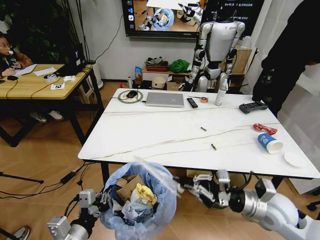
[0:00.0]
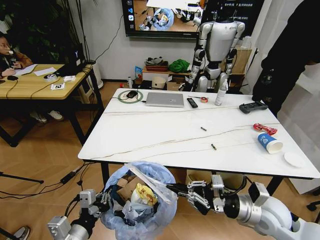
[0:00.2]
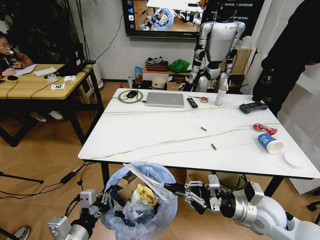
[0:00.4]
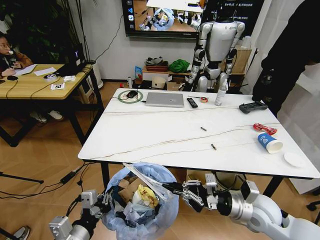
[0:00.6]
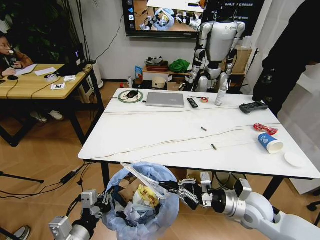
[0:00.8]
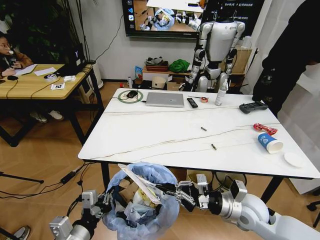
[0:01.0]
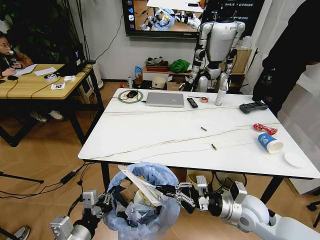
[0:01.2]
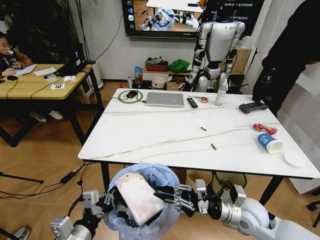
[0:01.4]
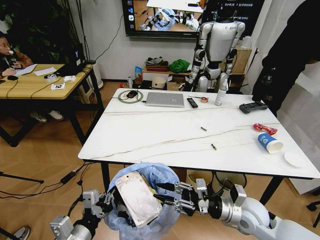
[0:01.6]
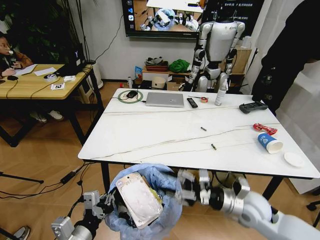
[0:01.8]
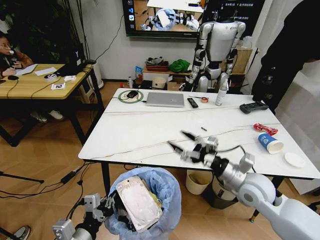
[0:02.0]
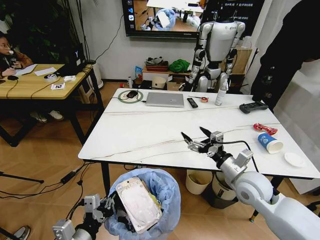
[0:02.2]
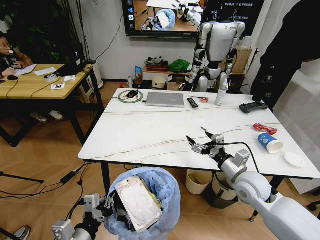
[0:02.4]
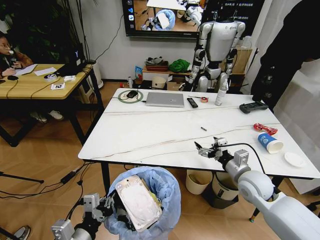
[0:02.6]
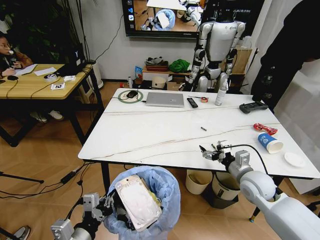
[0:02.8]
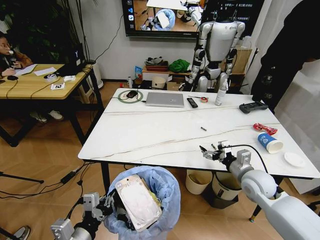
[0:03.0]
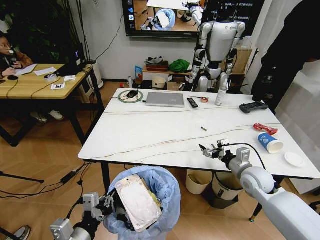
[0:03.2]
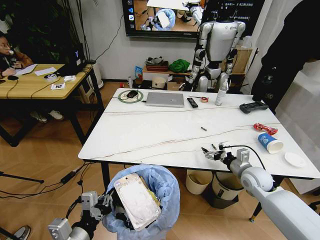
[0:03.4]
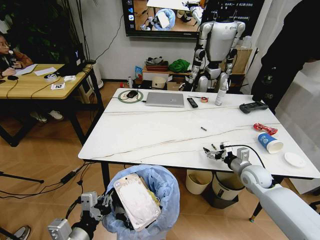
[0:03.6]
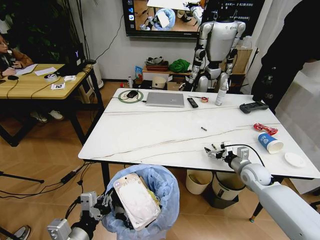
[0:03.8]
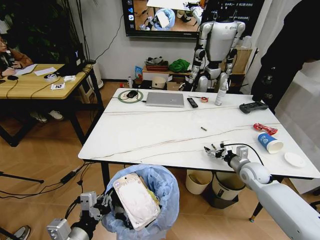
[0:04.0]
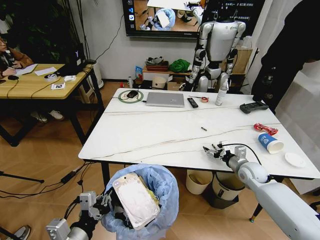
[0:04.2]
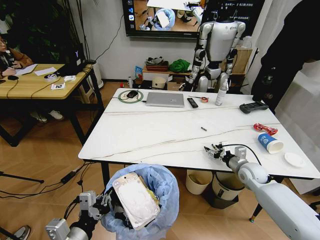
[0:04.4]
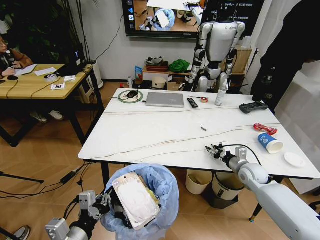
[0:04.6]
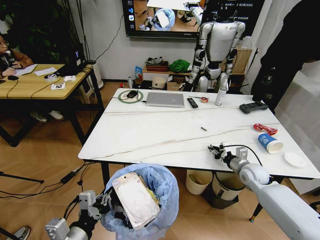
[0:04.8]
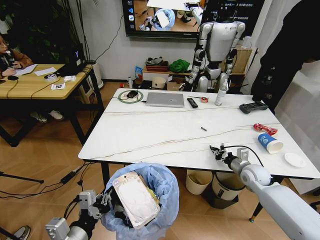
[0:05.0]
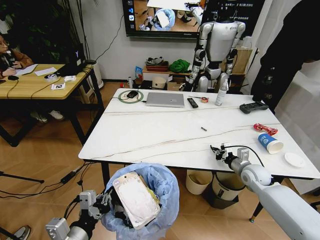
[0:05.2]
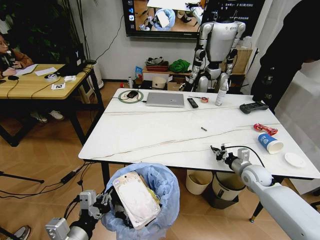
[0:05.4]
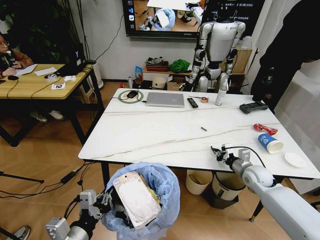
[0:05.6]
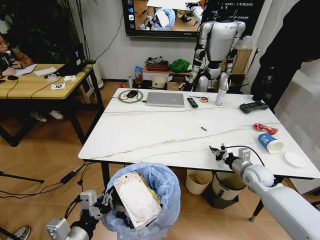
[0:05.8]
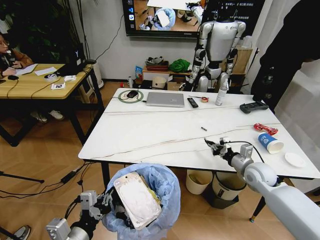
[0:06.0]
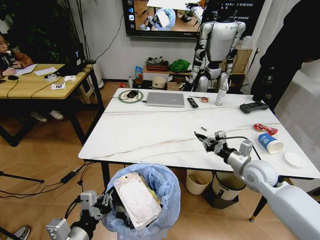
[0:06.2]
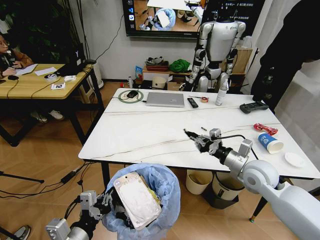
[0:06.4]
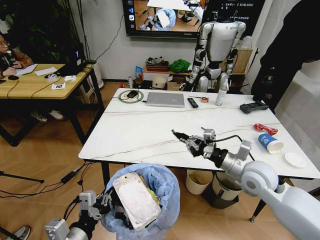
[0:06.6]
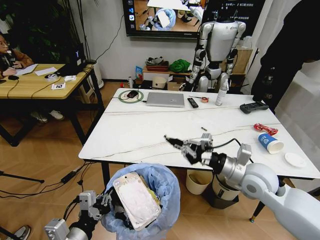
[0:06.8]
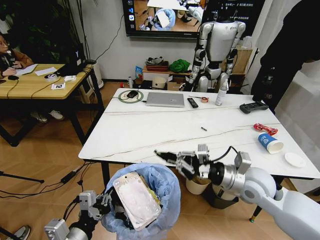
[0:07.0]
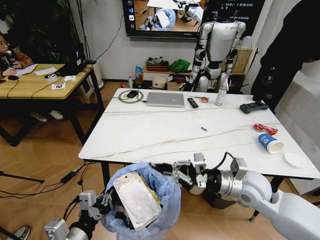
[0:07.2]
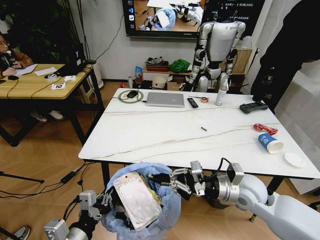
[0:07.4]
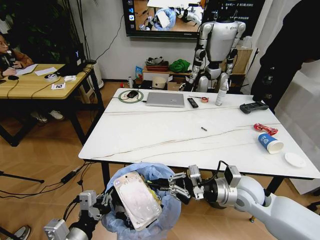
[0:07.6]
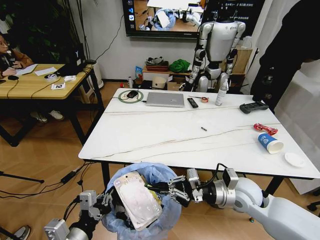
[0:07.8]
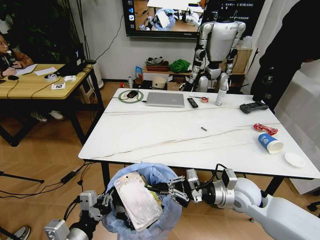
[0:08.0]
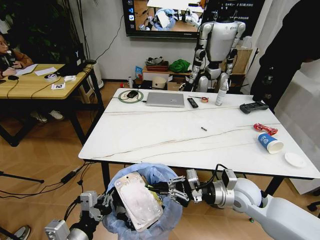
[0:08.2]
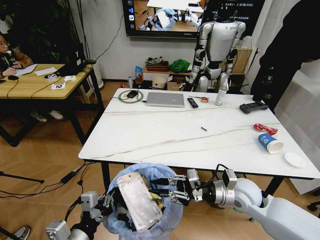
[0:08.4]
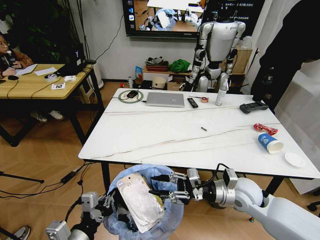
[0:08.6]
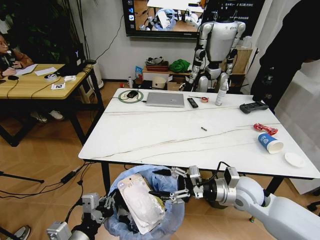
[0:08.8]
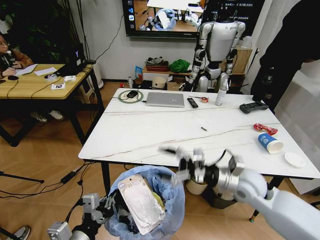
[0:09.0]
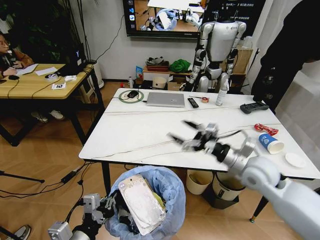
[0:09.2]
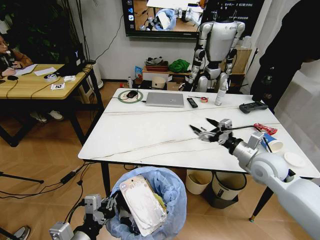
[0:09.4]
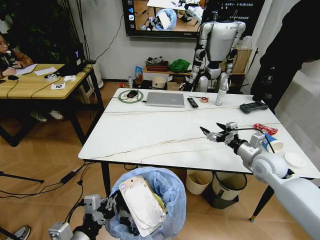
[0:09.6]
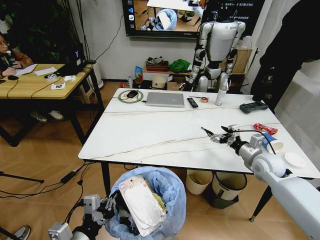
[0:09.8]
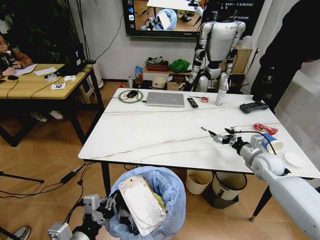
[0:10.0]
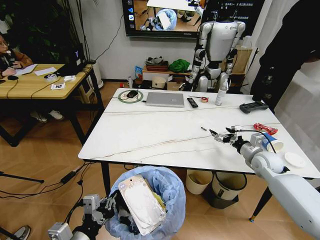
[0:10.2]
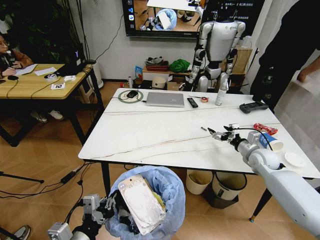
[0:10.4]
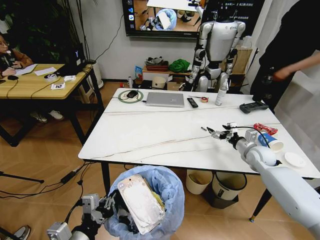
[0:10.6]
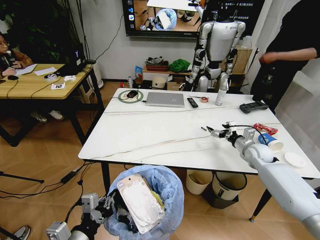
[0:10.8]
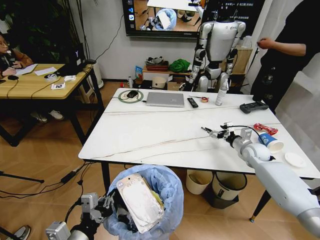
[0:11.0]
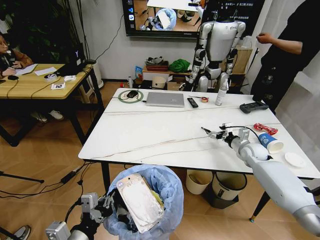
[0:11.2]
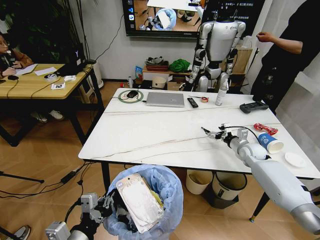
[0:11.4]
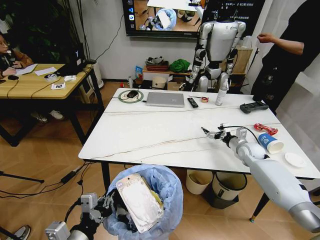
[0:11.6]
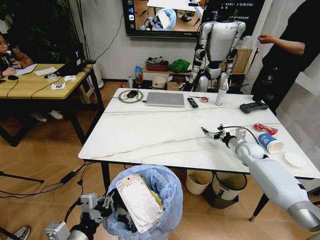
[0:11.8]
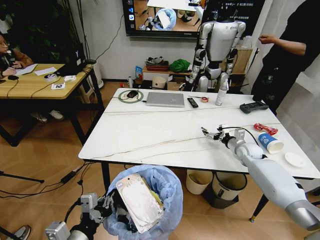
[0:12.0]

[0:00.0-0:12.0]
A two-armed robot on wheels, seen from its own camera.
Task of the whole recording: Pick up the trash bin and place the trash from the table into it.
0:00.0 to 0:01.6: The right gripper is displaced downward by approximately 5 cm, and opens.
0:01.6 to 0:03.0: The right gripper shifts roughly 10 cm forward and to the right, and opens.
0:03.0 to 0:04.4: The right gripper goes roughly 10 cm forward and downward.
0:04.4 to 0:06.0: The right gripper shifts by approximately 5 cm, and closes up.
0:06.0 to 0:07.6: The right gripper heads to the left and backward, covering some 15 cm.
0:07.6 to 0:09.0: The right gripper opens up.
0:09.0 to 0:10.4: The right gripper travels to the right, forward and downward by roughly 20 cm.
0:10.4 to 0:12.0: The right gripper is displaced forward by roughly 5 cm.

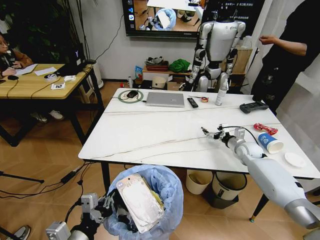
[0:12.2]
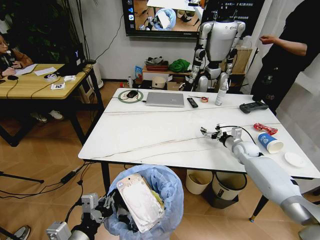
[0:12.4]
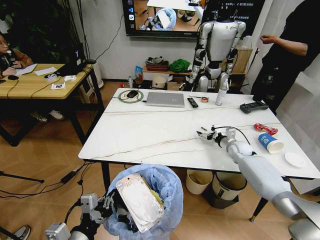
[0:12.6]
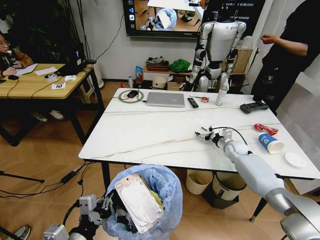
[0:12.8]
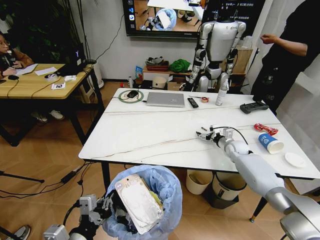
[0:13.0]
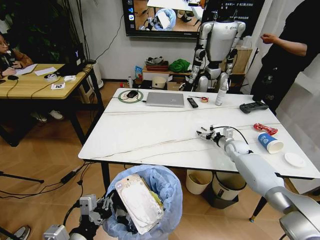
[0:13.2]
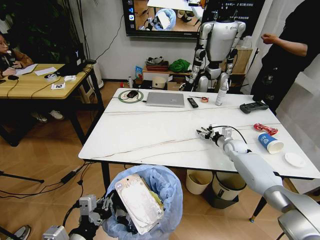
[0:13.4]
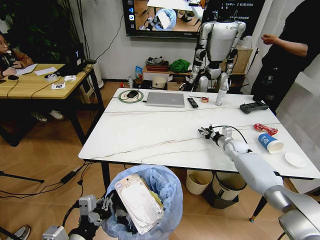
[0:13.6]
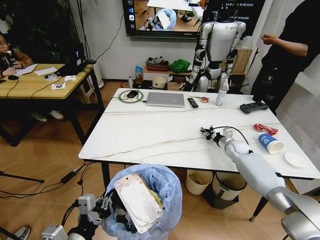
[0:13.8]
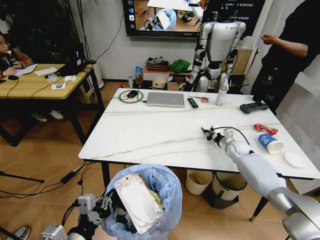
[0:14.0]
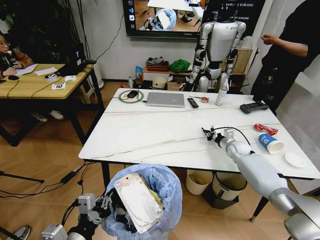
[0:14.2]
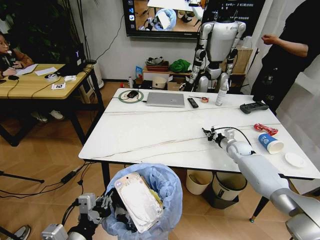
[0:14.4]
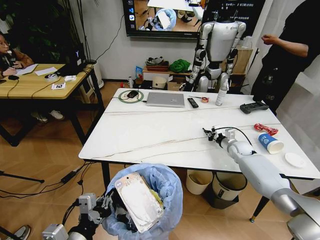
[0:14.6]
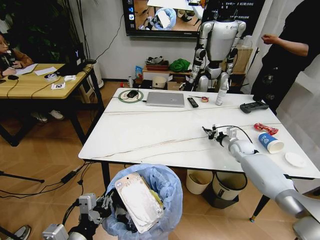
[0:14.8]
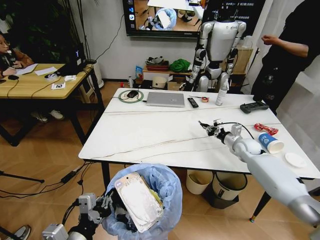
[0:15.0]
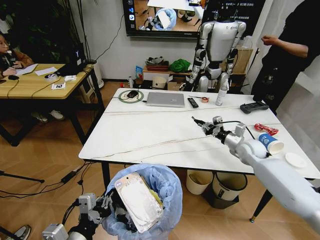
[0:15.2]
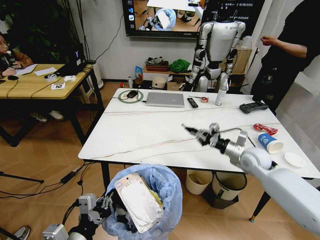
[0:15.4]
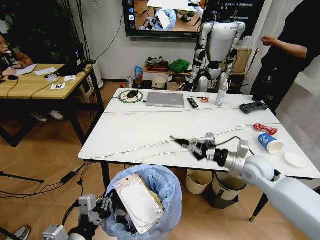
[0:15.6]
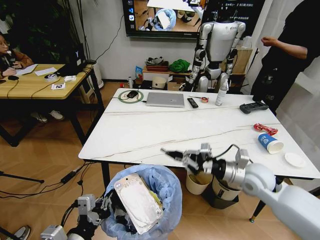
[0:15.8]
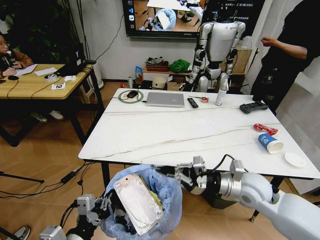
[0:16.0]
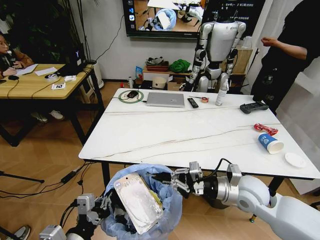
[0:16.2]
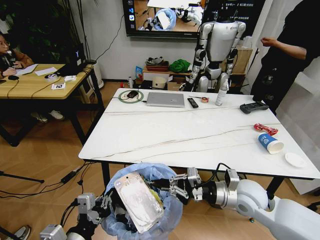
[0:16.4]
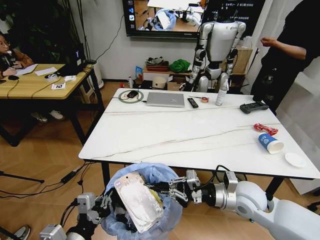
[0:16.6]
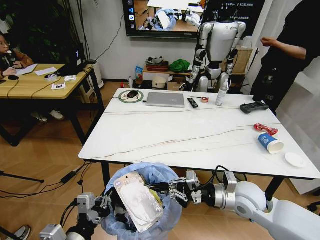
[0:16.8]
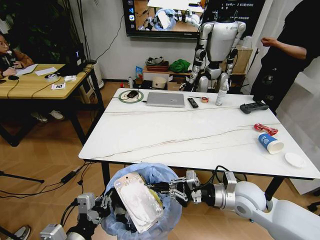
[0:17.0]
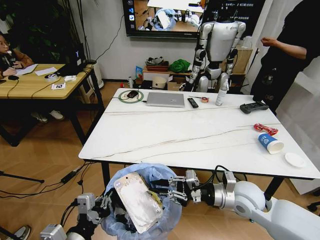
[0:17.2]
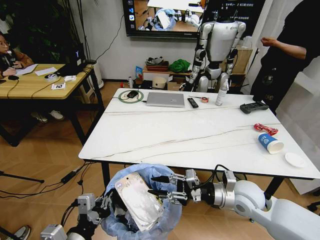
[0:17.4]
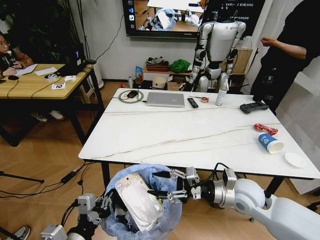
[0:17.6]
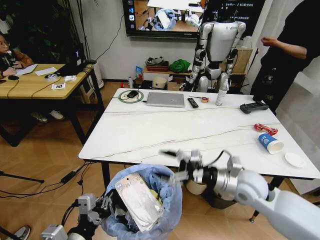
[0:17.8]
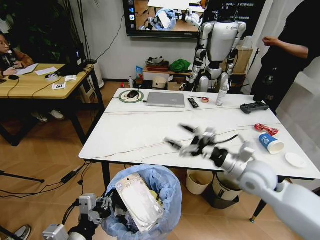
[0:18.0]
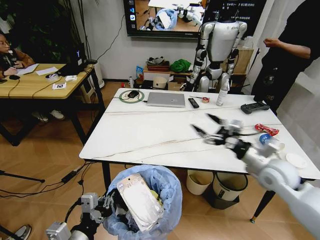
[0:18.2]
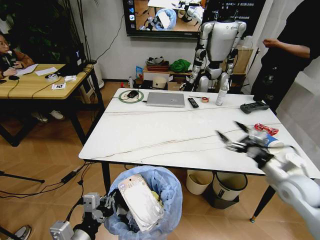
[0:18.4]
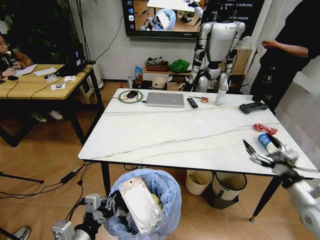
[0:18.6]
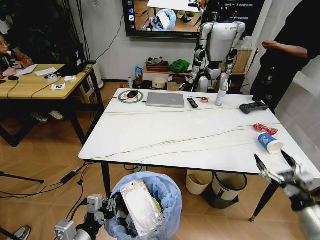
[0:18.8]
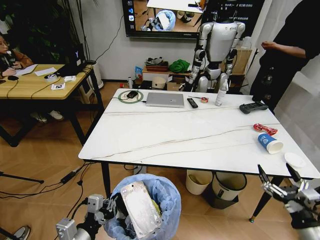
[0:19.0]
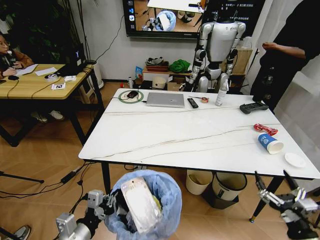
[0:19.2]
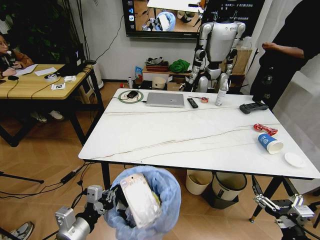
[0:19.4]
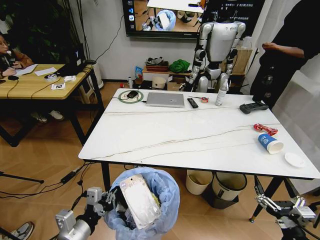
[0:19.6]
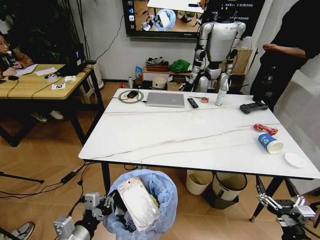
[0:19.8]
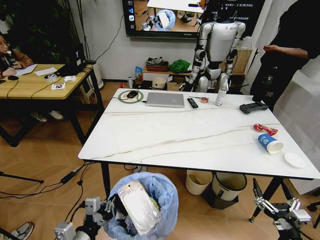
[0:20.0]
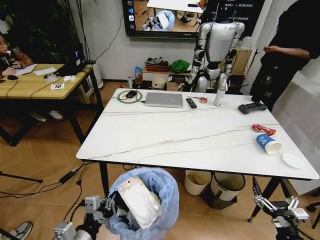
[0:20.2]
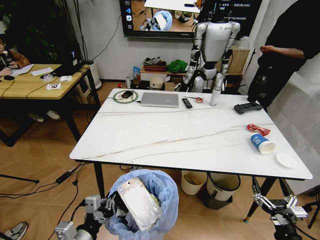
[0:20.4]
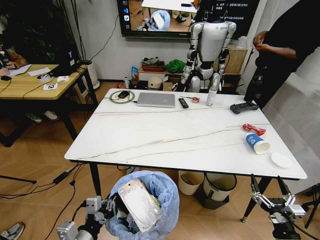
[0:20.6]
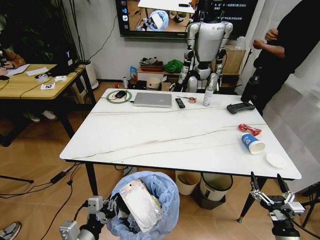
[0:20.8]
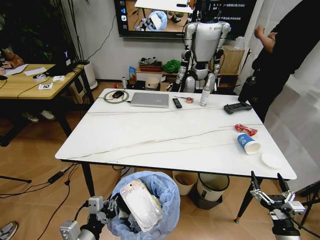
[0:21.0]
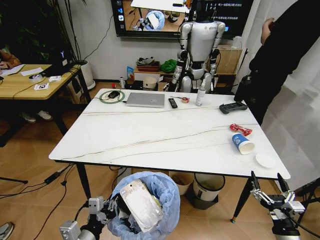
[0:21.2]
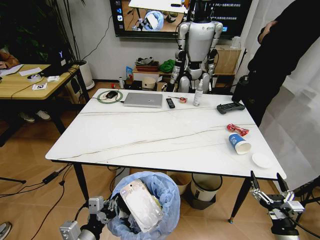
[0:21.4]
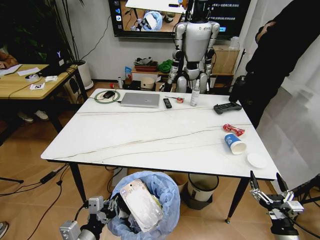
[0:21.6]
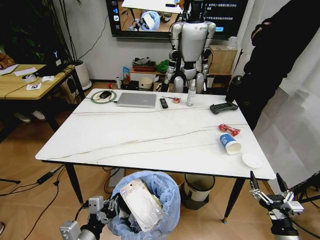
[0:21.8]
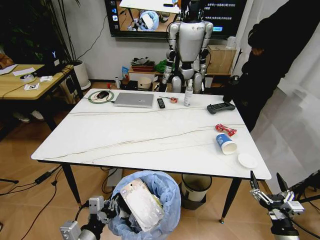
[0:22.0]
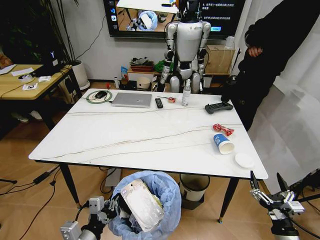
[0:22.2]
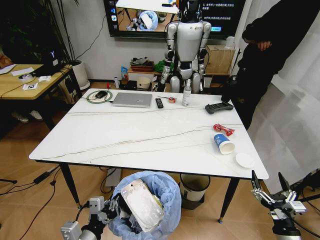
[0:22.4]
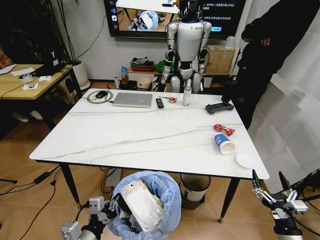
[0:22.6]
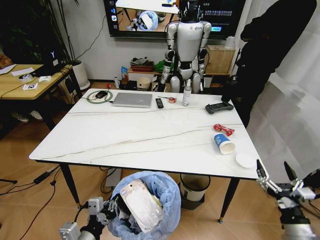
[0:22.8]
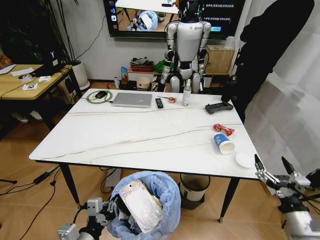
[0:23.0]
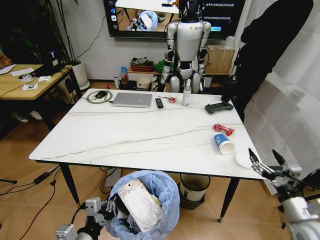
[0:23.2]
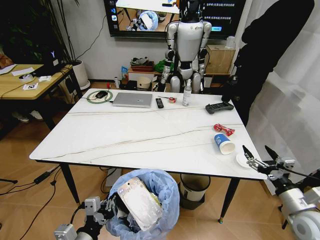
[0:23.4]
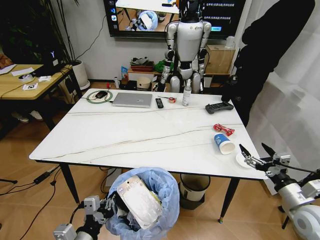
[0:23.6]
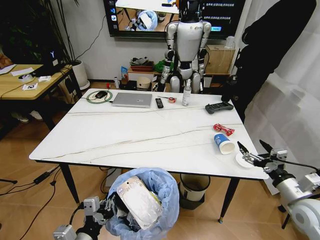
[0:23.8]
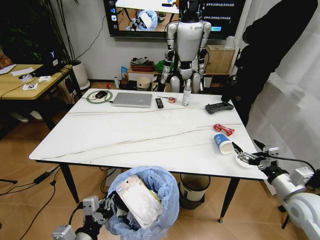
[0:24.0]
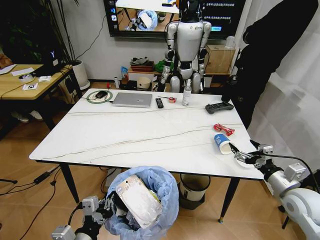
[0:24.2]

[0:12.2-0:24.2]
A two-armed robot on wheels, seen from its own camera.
Task of the whole recording: Pick up the trash bin and place the trash from the table into it.
0:12.2 to 0:13.8: The right gripper ends up some 5 cm from where it was, and closes its fingers.
0:13.8 to 0:15.2: The right gripper heads upward and backward, covering some 10 cm.
0:15.2 to 0:16.6: The right gripper heads backward and to the left, covering about 20 cm.
0:16.6 to 0:18.2: The right gripper is displaced to the right, forward and upward by approximately 10 cm, and opens its fingers.
0:18.2 to 0:19.8: The right gripper goes approximately 30 cm backward and downward.
0:22.6 to 0:24.2: The right gripper moves forward and upward, roughly 20 cm.
